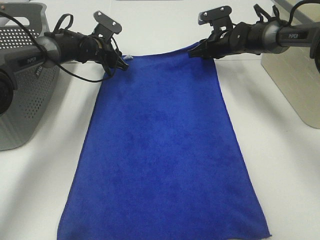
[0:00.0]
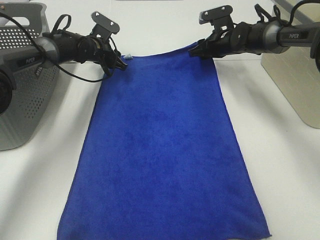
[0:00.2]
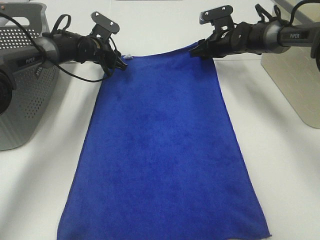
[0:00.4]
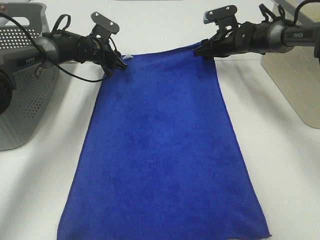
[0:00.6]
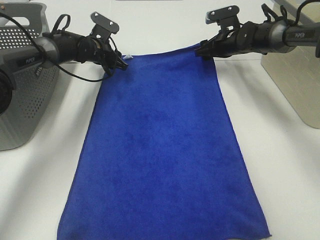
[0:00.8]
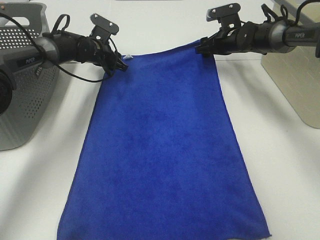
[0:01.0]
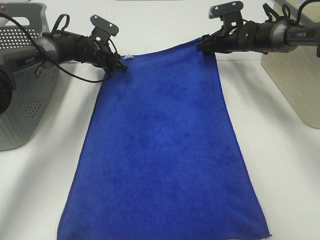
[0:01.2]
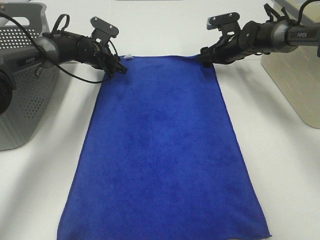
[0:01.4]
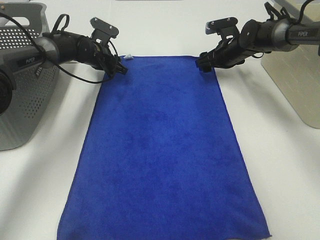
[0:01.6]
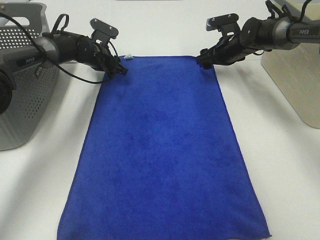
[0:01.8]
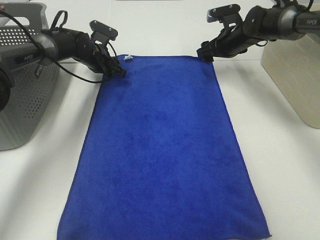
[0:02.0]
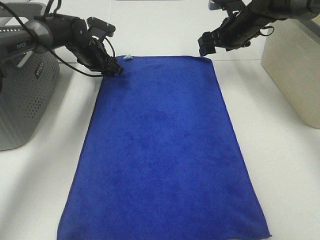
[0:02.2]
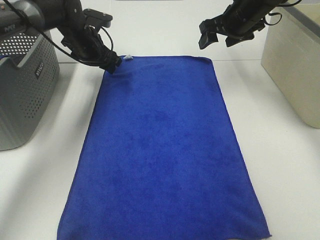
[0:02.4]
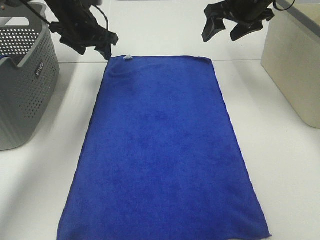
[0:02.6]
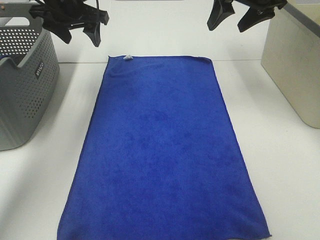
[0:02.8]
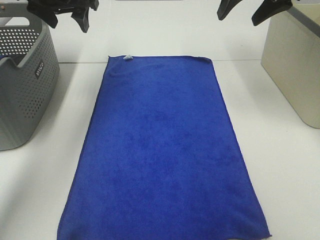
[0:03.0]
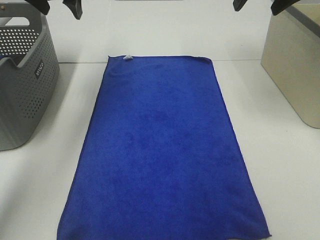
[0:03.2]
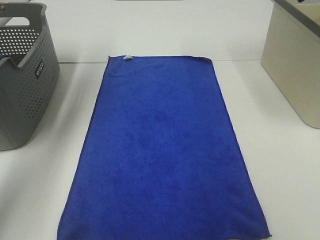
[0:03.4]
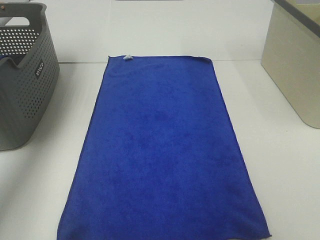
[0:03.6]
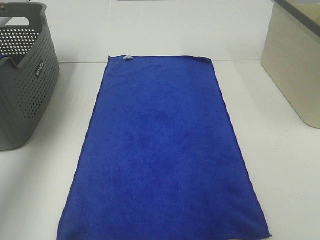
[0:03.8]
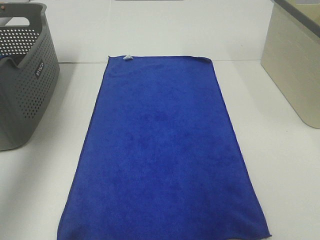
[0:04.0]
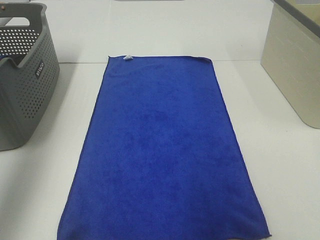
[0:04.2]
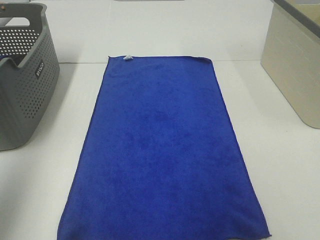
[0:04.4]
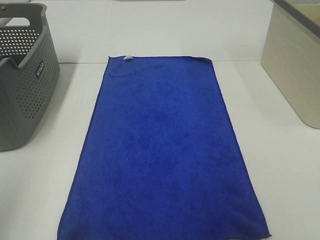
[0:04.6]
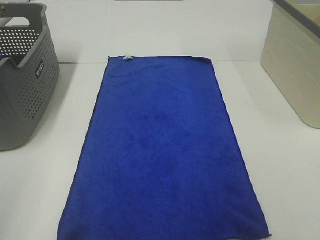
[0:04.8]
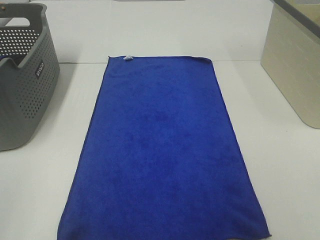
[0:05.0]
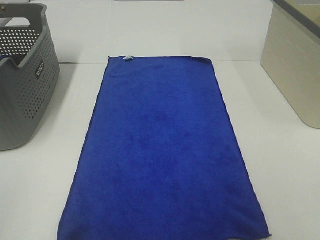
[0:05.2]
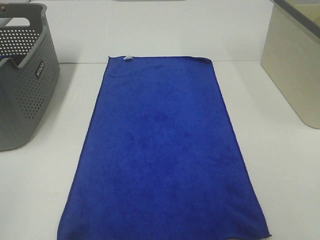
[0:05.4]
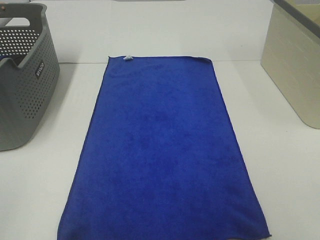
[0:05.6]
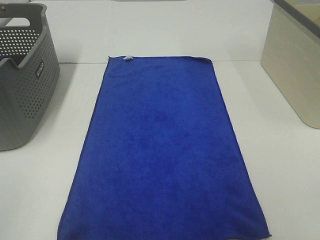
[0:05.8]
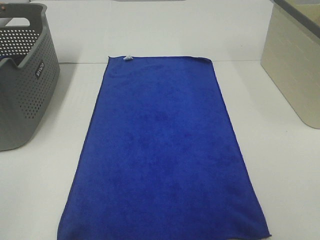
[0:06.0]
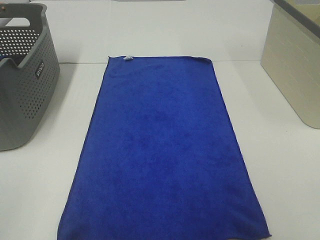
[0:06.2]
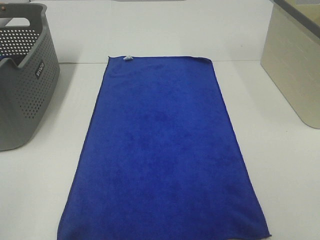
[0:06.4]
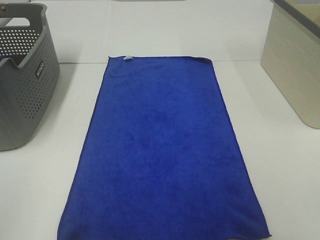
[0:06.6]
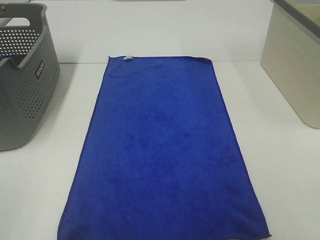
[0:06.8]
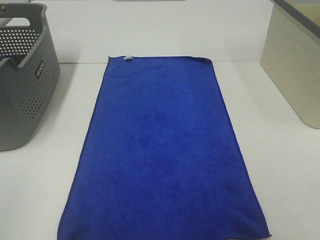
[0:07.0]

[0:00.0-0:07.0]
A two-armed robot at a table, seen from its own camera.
Task of the whole recording: Remove the towel and place it.
0:00.0 to 0:01.4: The right gripper opens up.
0:01.4 to 0:02.8: The two grippers go approximately 20 cm upward and backward.
0:02.8 to 0:04.2: The right gripper is displaced backward and upward by roughly 30 cm, while the left gripper heads backward, upward and to the left, covering about 30 cm.
0:04.2 to 0:05.6: The left gripper travels backward and downward by roughly 25 cm.
0:05.6 to 0:07.0: Both grippers stay about where they are.

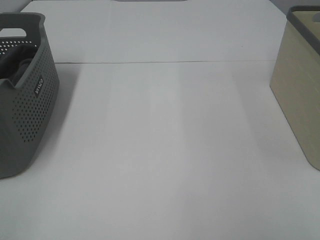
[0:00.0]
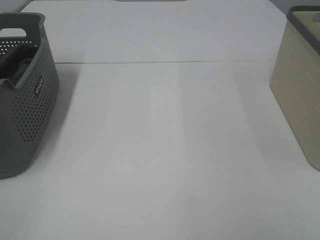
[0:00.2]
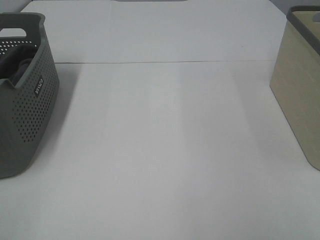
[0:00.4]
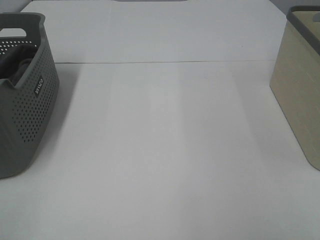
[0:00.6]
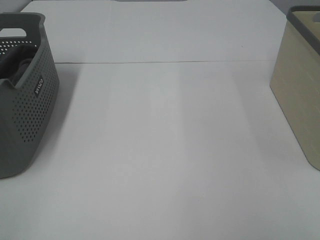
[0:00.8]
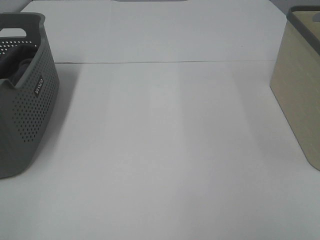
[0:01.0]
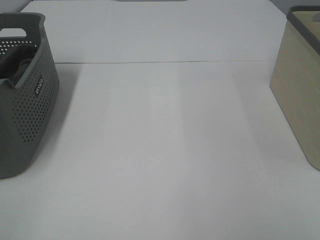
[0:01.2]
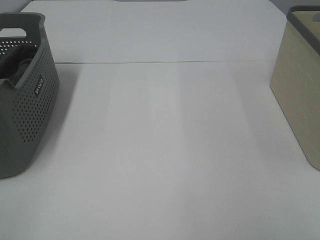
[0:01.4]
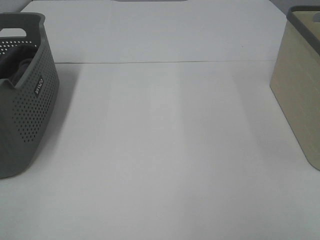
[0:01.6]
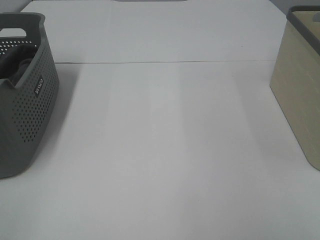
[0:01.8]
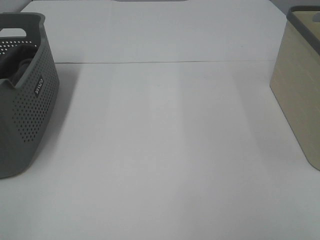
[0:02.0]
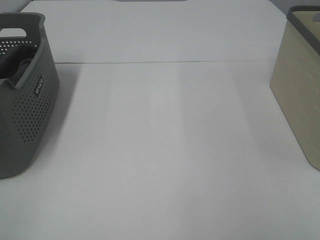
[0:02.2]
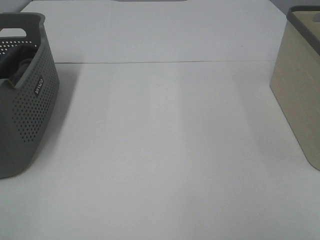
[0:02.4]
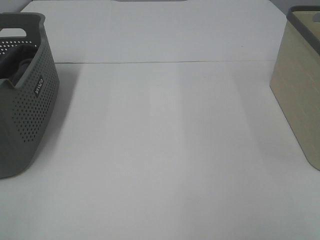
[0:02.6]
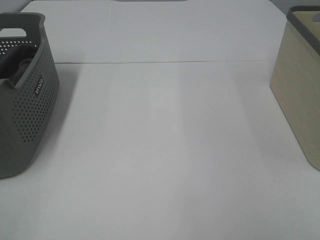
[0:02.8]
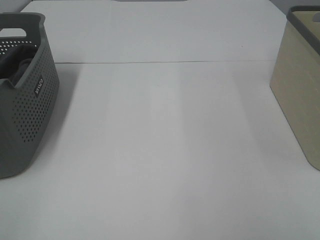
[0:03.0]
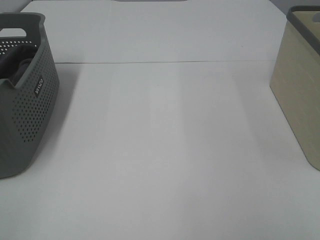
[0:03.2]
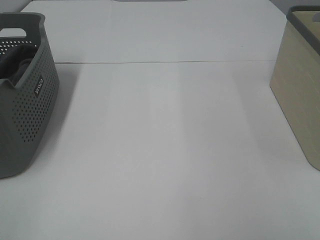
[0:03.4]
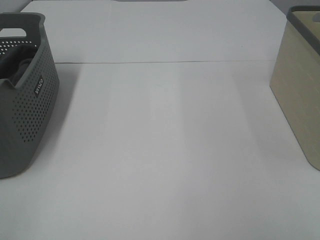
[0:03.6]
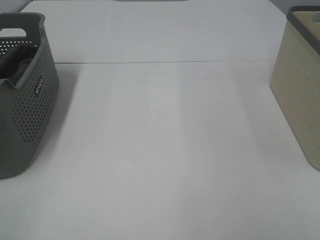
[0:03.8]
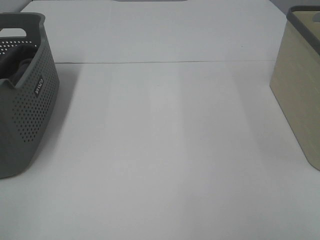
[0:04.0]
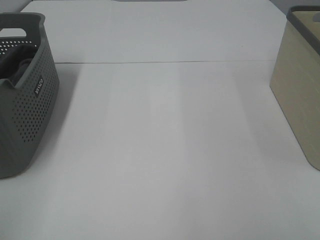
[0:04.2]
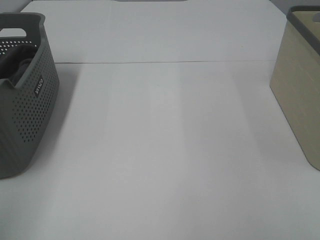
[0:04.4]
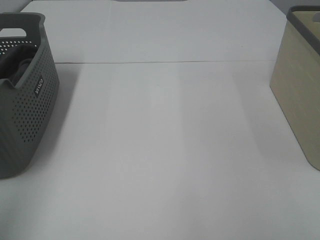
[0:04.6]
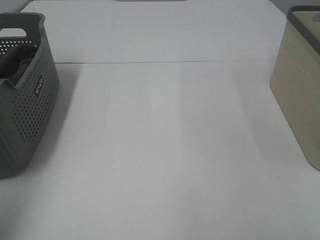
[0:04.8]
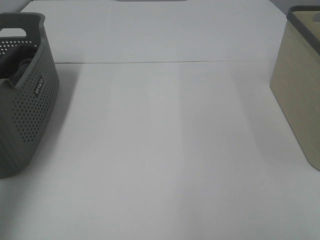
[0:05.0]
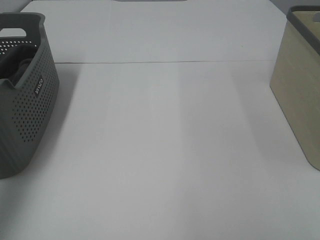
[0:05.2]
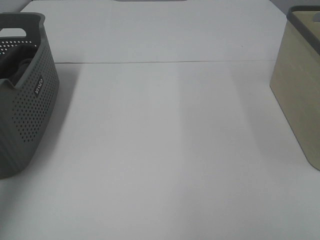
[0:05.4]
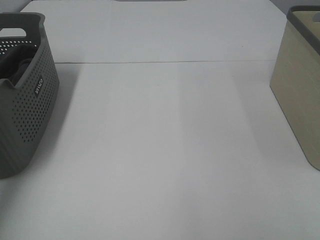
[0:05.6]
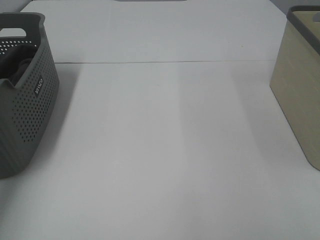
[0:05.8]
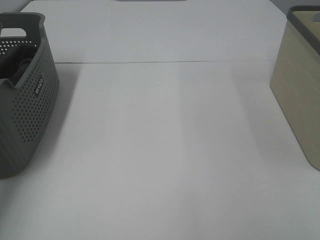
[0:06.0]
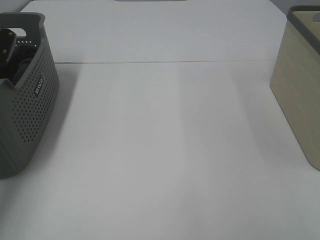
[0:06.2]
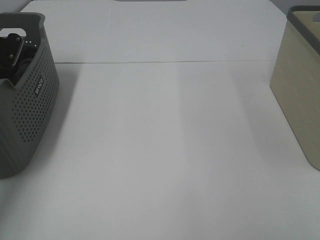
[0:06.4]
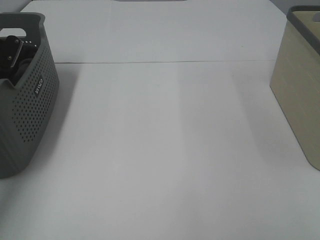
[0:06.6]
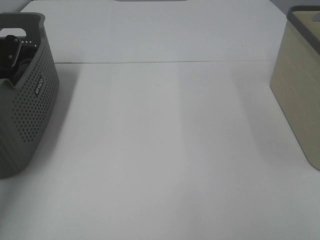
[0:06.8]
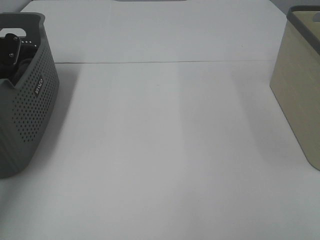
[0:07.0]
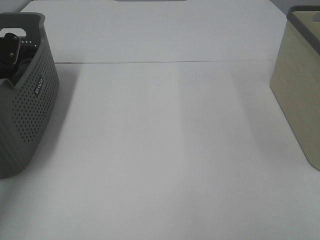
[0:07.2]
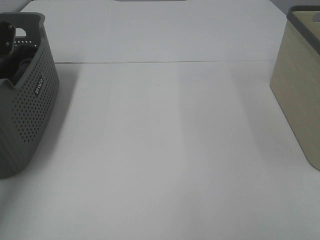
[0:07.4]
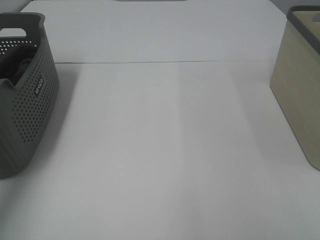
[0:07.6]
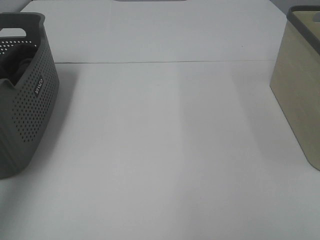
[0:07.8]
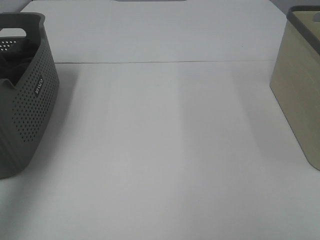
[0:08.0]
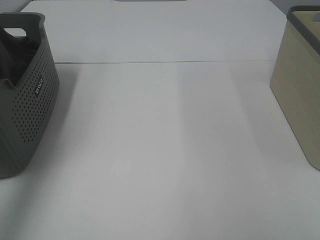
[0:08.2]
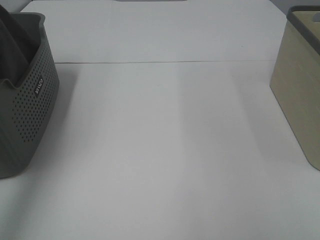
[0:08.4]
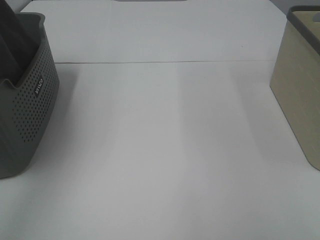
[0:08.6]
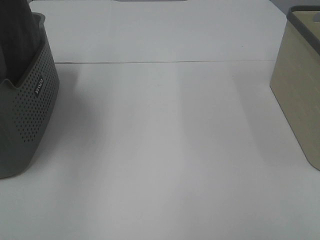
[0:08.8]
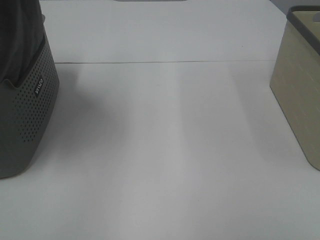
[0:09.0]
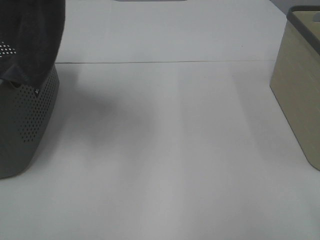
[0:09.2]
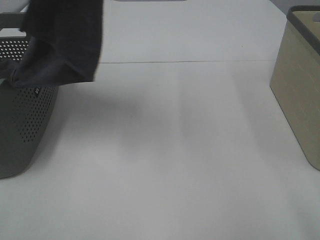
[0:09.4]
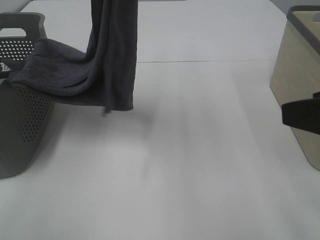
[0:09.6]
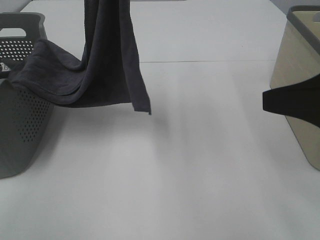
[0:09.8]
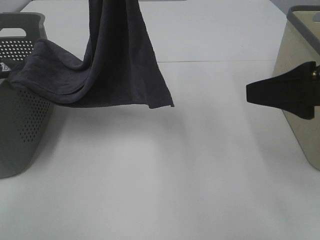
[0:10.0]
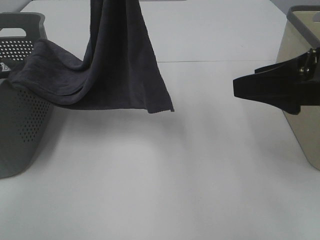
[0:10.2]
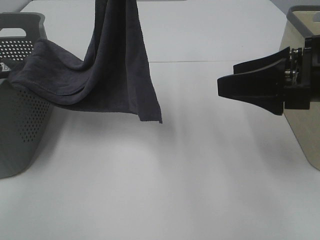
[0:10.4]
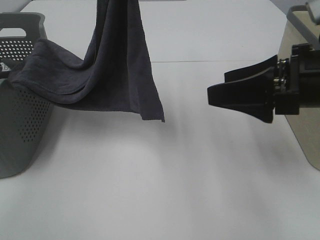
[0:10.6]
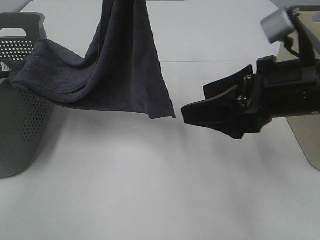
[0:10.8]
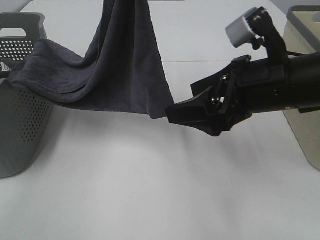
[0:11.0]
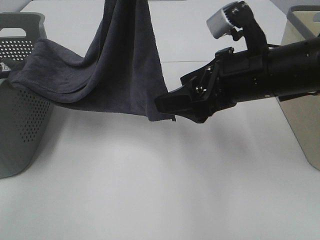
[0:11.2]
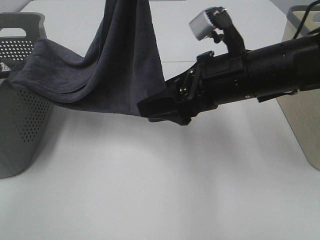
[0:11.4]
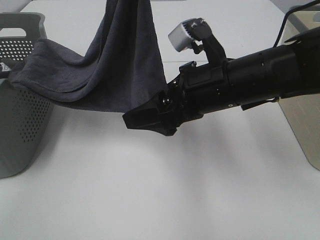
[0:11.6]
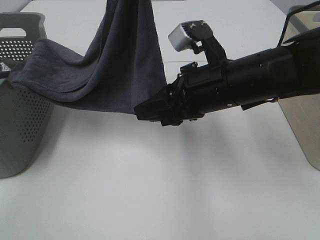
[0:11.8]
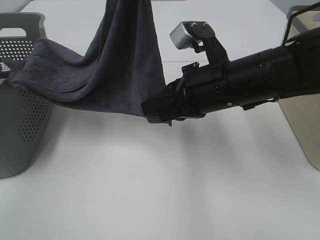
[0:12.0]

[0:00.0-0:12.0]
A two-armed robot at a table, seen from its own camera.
Task of the whole recording: Remove the towel and place it.
0:00.0 to 0:03.0: Neither gripper changes place.
0:04.4 to 0:06.0: The left gripper heads forward, covering about 35 cm.
0:07.6 to 0:09.0: The left gripper shifts some 30 cm upward, to the right and backward.
0:09.0 to 0:10.4: The left gripper moves to the right and downward, roughly 15 cm, while the right gripper is displaced forward by roughly 20 cm.
0:10.4 to 0:12.0: The right gripper is displaced to the left by approximately 10 cm, and closes its fingers.

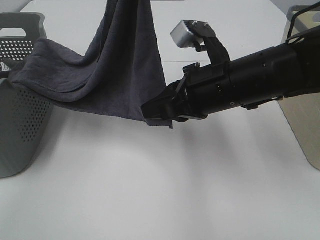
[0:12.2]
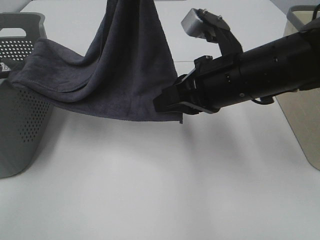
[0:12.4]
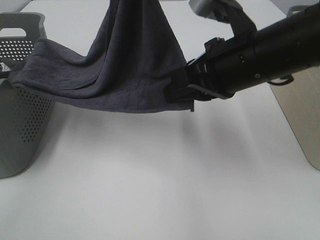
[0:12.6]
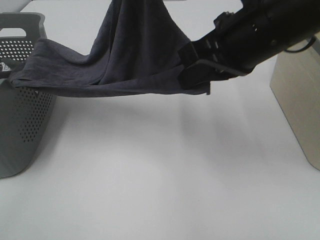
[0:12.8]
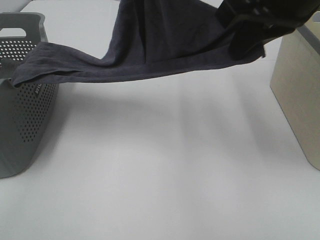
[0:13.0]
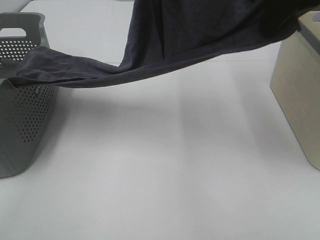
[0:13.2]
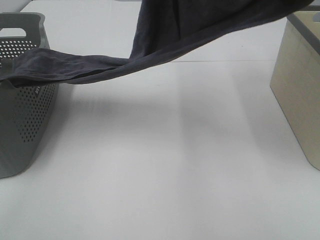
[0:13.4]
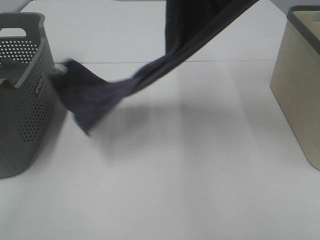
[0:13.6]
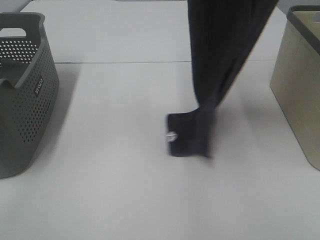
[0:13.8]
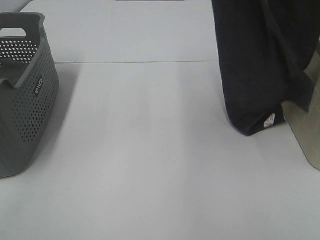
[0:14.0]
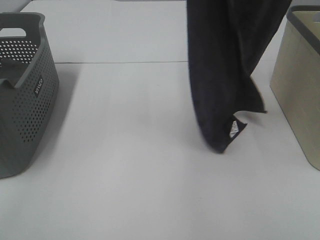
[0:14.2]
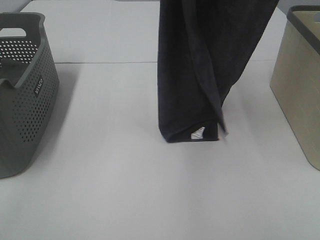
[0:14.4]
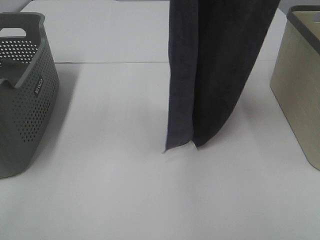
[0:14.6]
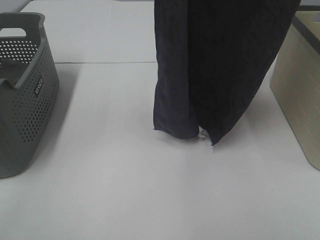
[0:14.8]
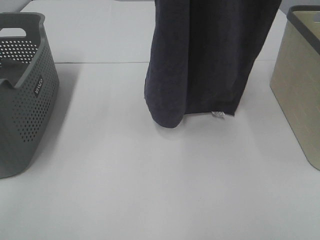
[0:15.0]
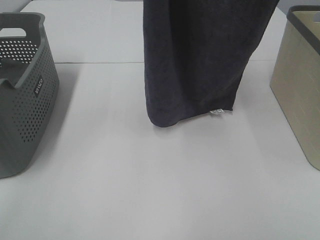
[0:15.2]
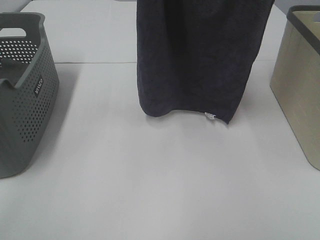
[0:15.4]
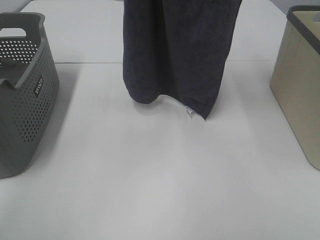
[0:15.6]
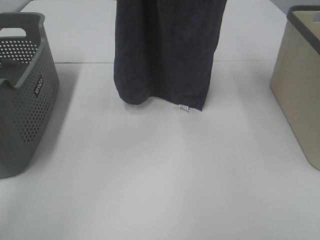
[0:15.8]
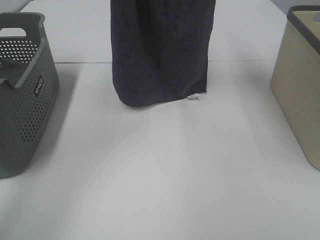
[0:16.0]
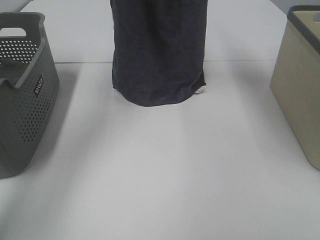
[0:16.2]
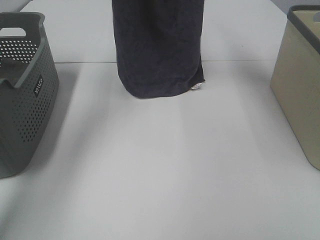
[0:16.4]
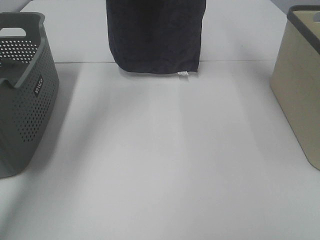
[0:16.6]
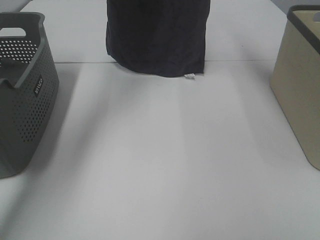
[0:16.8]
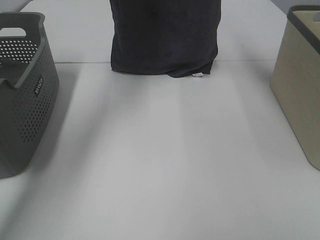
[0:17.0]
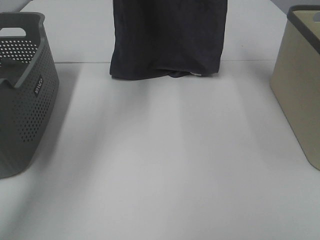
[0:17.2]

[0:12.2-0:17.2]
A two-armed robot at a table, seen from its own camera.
Task of the whole recording: Remove the towel and place it.
0:12.2 to 0:13.8: The right gripper is displaced upward by about 30 cm.
0:13.8 to 0:15.6: The right gripper shifts about 5 cm forward; the left gripper shifts about 10 cm to the left and forward.
0:15.6 to 0:17.2: The two grippers go some 15 cm forward and downward.
